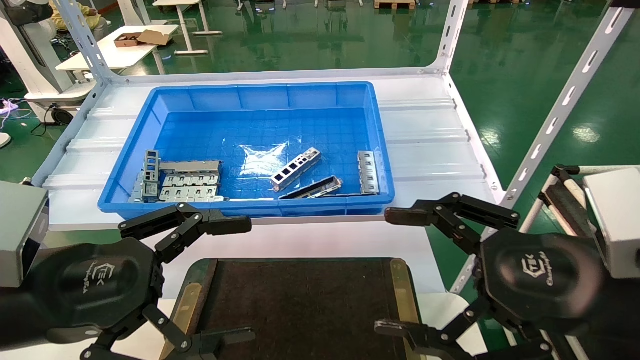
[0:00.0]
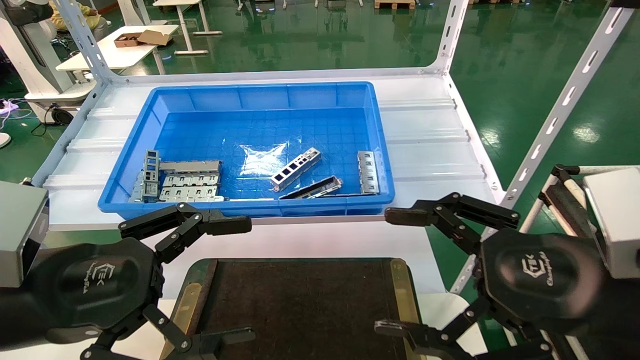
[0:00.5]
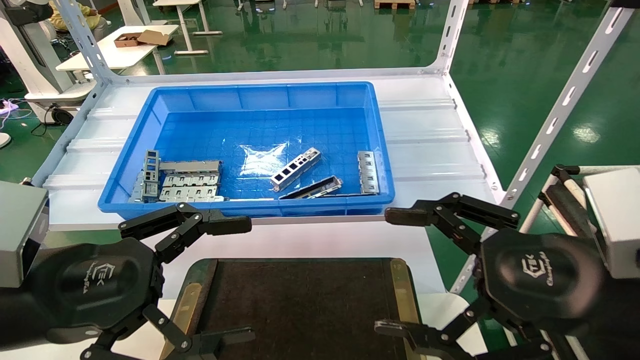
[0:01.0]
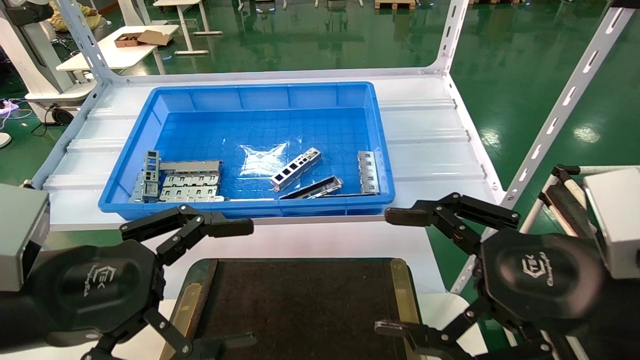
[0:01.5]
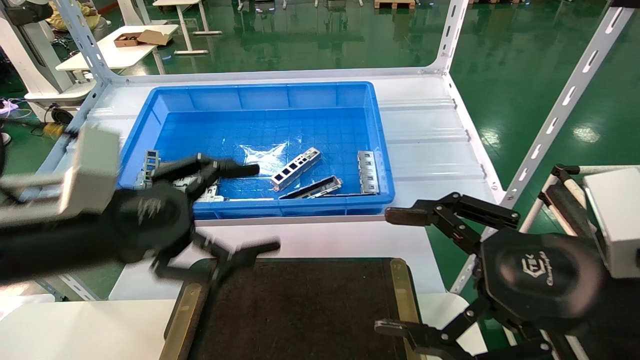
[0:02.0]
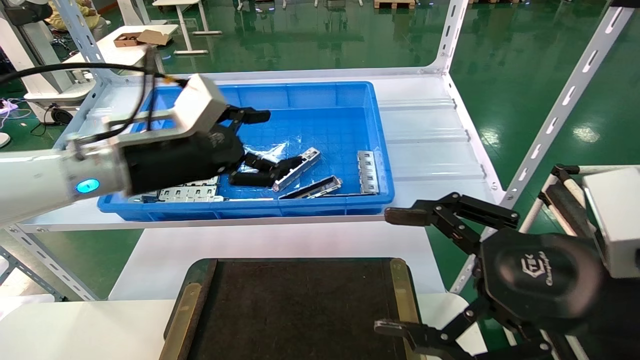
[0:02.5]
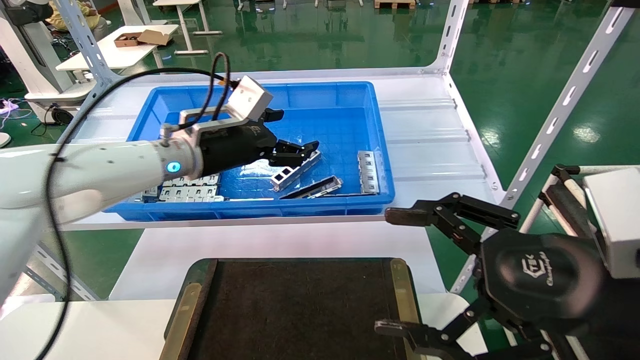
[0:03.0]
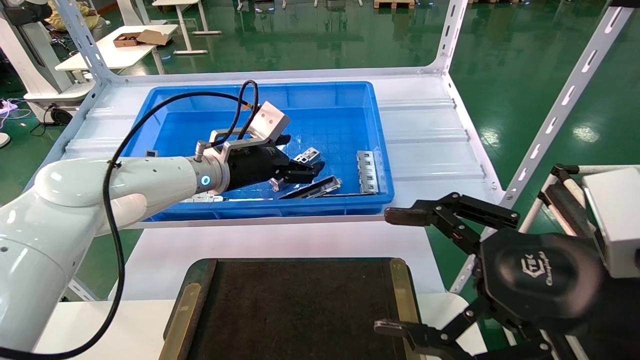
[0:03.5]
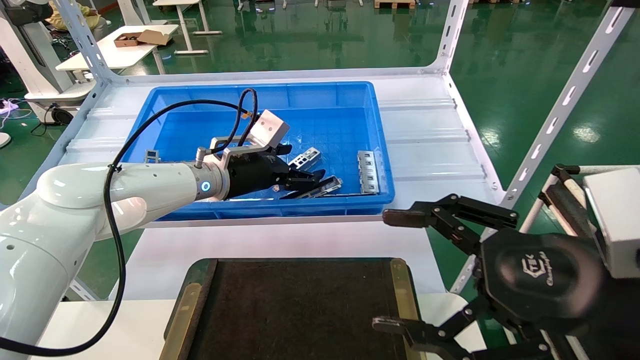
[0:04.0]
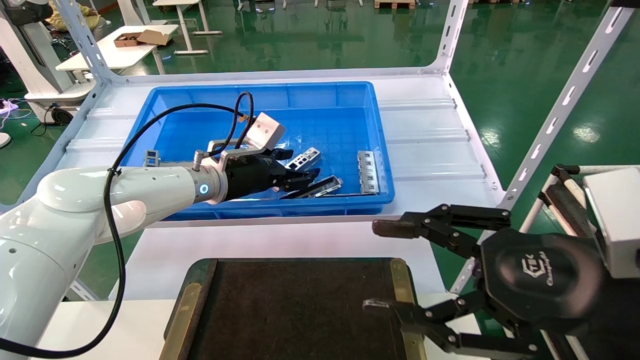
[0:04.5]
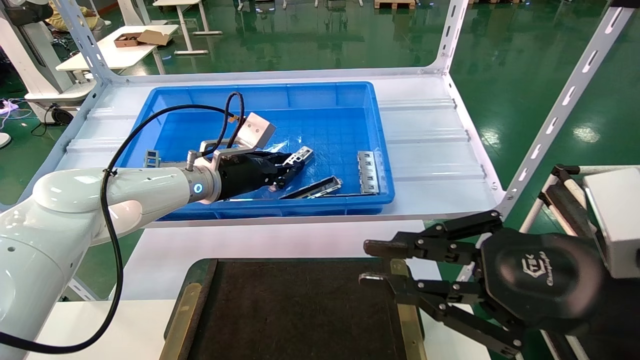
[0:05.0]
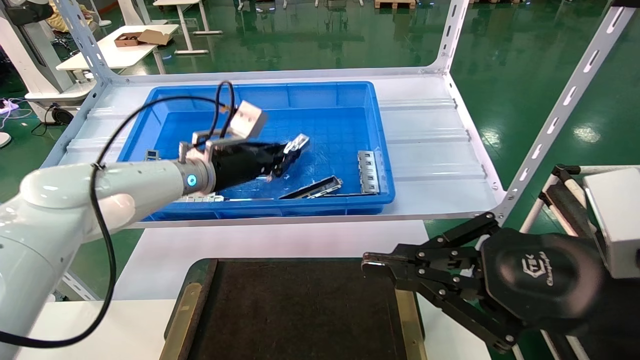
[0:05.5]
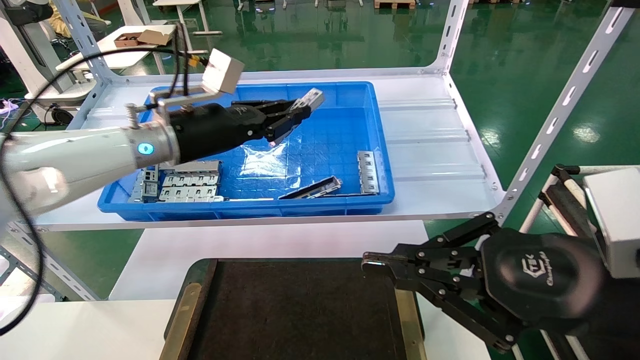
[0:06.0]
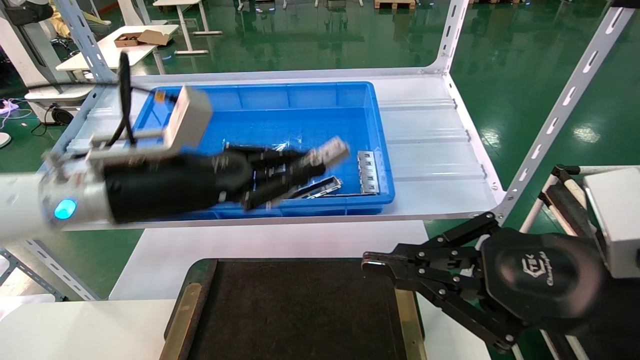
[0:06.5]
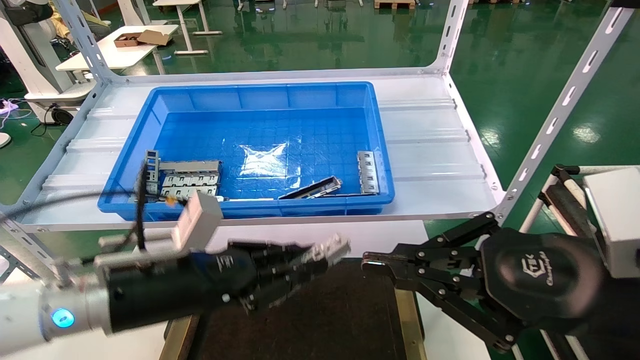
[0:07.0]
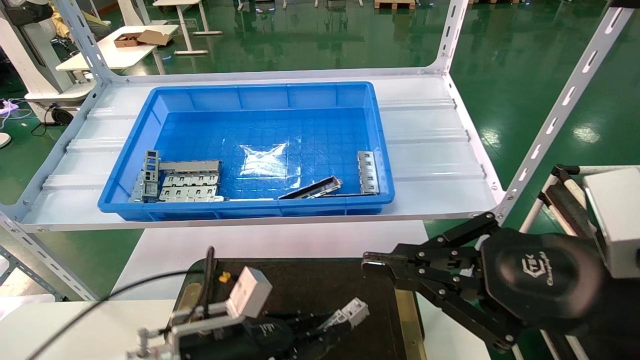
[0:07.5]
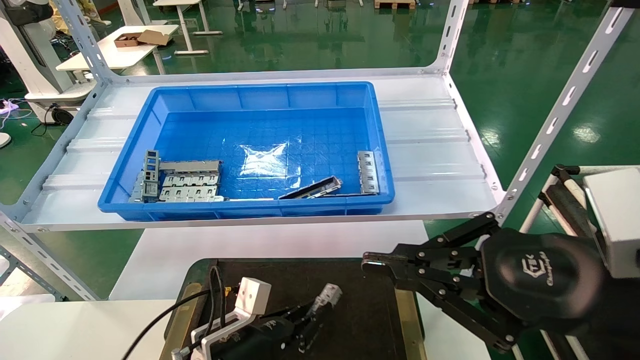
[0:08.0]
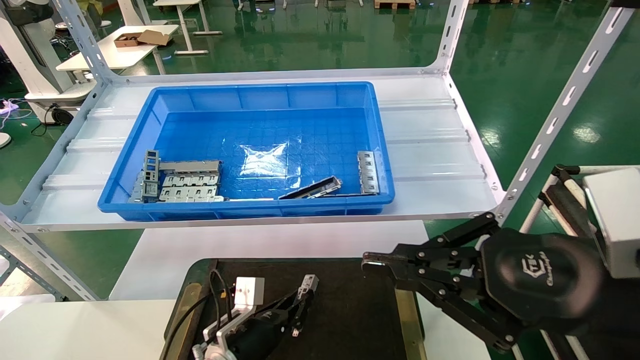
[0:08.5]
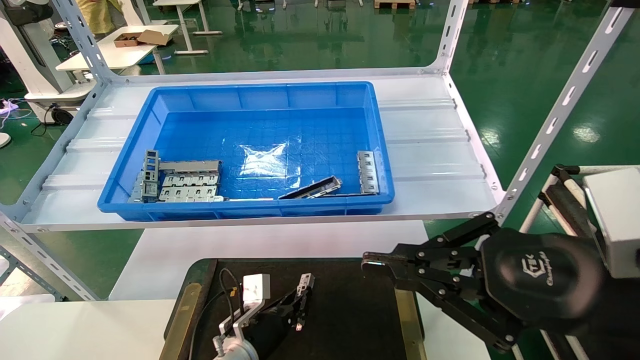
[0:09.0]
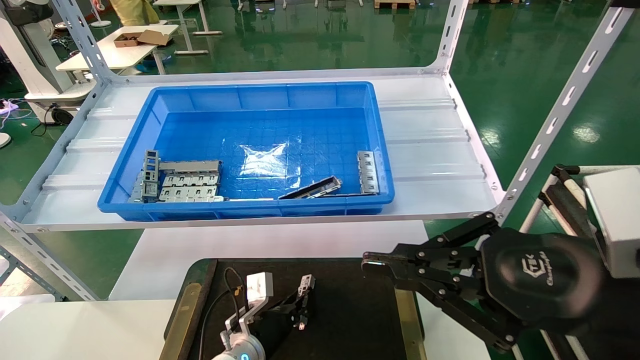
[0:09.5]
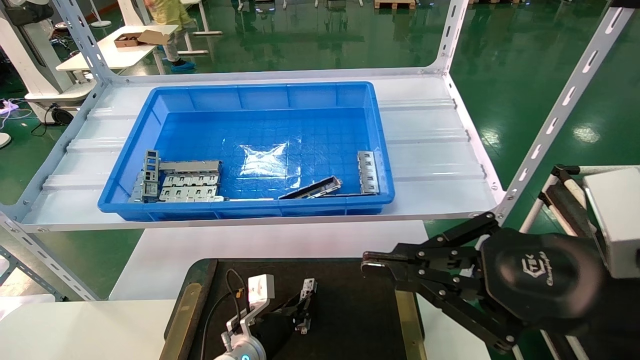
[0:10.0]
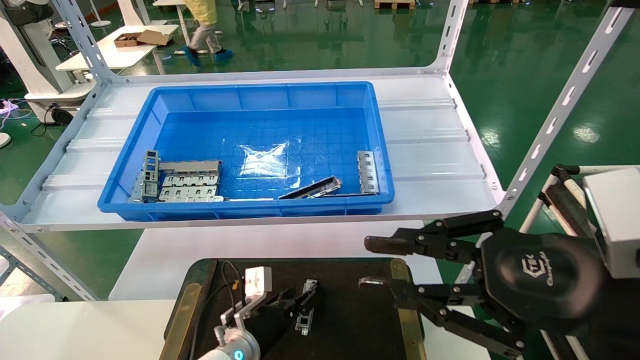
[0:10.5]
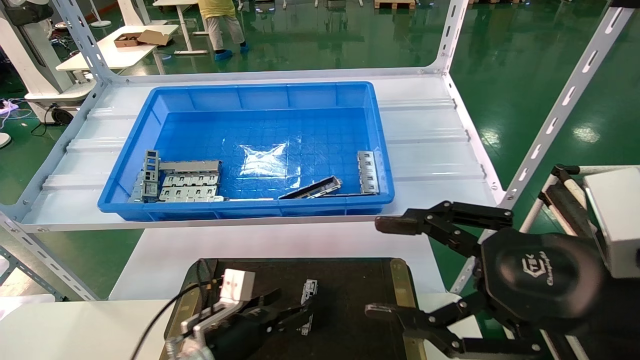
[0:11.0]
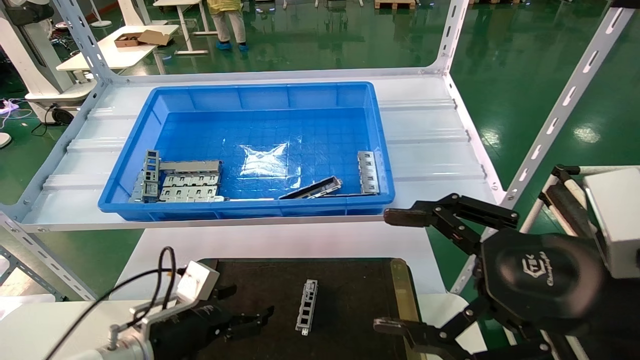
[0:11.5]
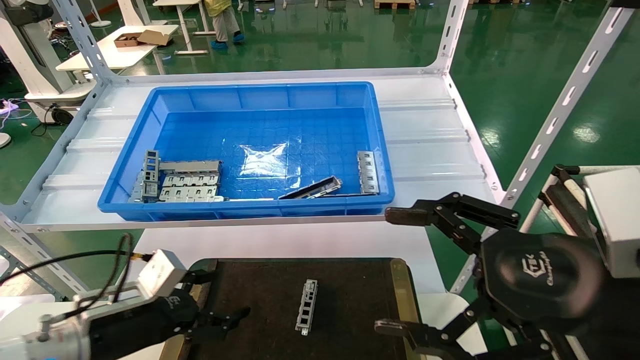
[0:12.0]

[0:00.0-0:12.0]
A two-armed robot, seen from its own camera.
Task of the whole recording: Grasp the part with one hand and place it on the black container.
Step, 0:02.0 to 0:05.0: Pick up the front USB bracket from the feeding area.
Step, 0:05.5 to 0:10.0: Place the front USB bracket into the box.
0:00.0 to 0:02.0: The left gripper moves forward, roughly 5 cm.
0:02.0 to 0:04.0: The left gripper travels forward and to the right by about 25 cm.
0:04.0 to 0:06.0: The left gripper heads upward and backward, covering roughly 10 cm, and closes up; the right gripper closes its fingers.
0:06.0 to 0:08.0: The left gripper shifts some 30 cm downward.
0:08.0 to 0:10.0: The left gripper heads forward and downward, covering approximately 10 cm.
0:10.0 to 0:12.0: The left gripper heads to the left, upward and backward, covering some 25 cm, and opens up. Meanwhile the right gripper opens.
